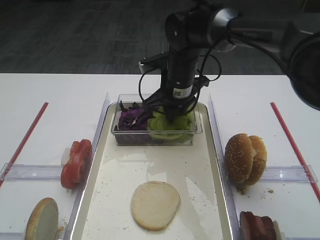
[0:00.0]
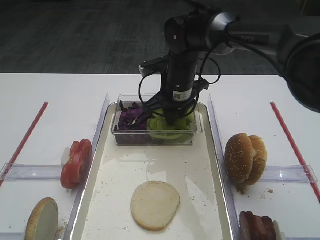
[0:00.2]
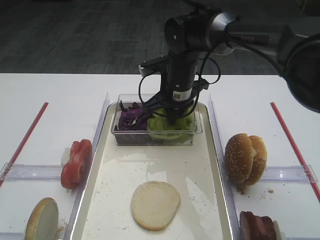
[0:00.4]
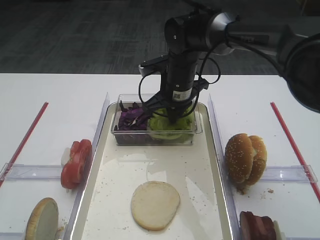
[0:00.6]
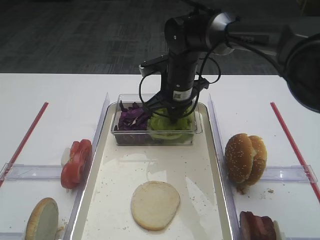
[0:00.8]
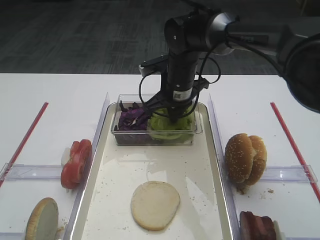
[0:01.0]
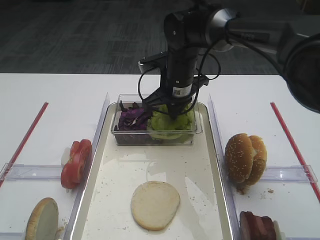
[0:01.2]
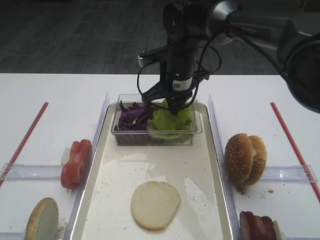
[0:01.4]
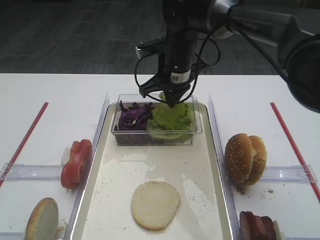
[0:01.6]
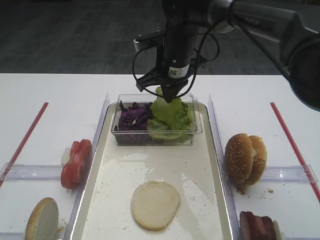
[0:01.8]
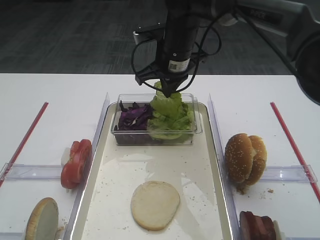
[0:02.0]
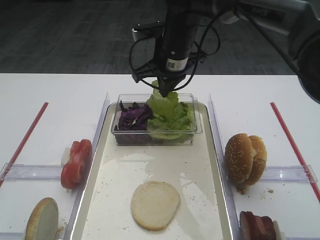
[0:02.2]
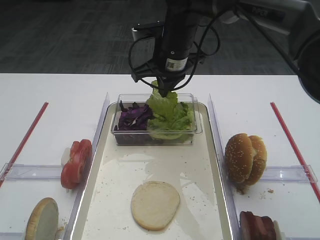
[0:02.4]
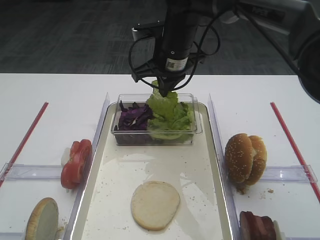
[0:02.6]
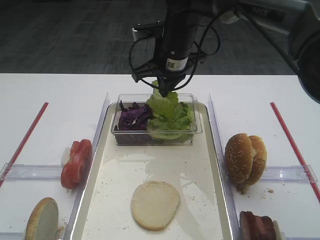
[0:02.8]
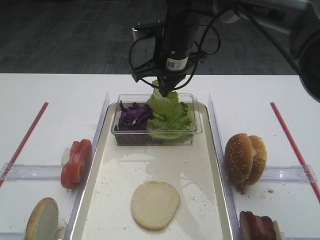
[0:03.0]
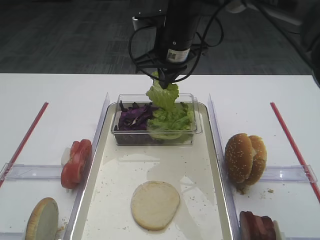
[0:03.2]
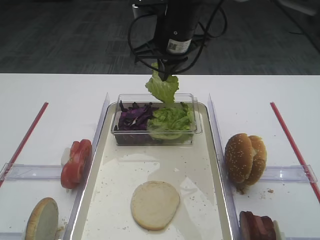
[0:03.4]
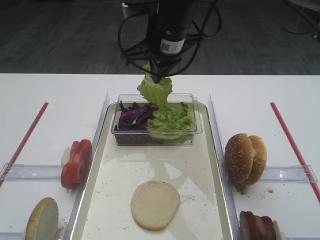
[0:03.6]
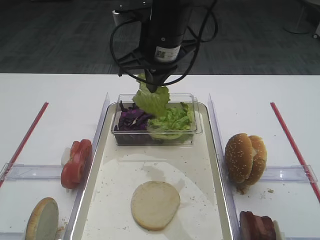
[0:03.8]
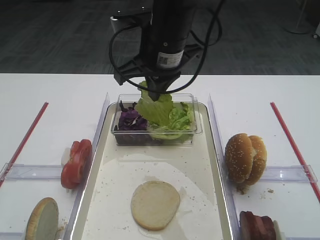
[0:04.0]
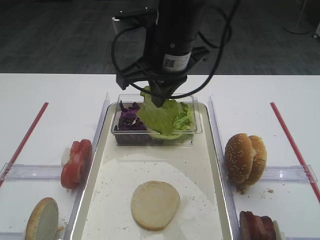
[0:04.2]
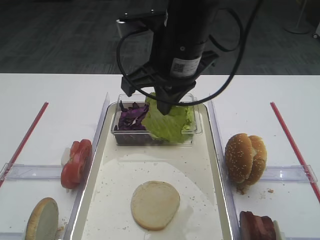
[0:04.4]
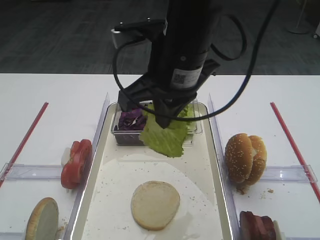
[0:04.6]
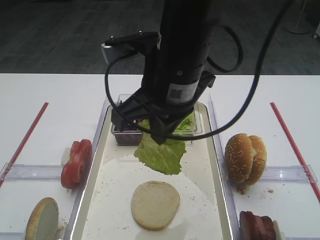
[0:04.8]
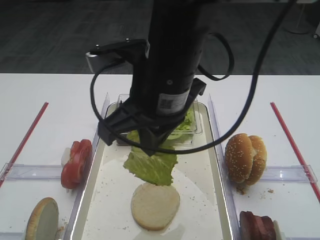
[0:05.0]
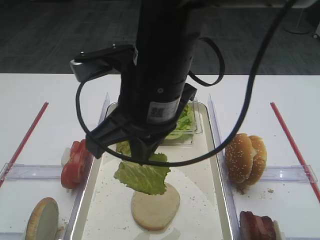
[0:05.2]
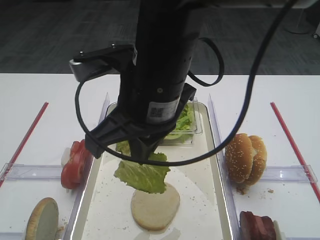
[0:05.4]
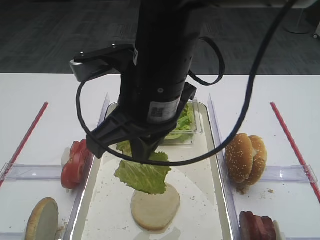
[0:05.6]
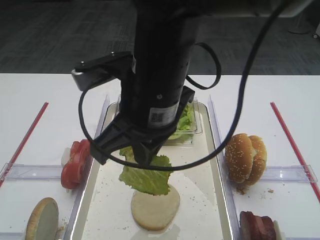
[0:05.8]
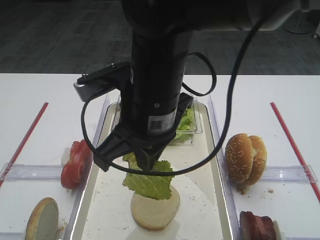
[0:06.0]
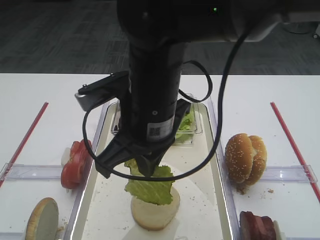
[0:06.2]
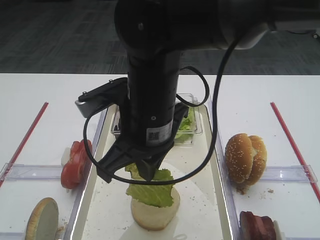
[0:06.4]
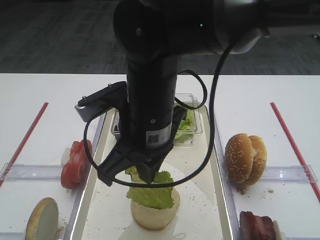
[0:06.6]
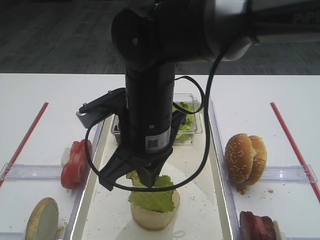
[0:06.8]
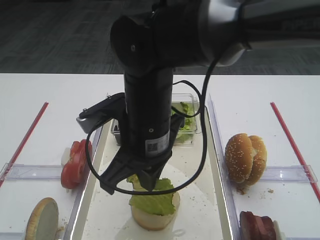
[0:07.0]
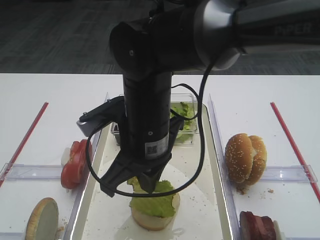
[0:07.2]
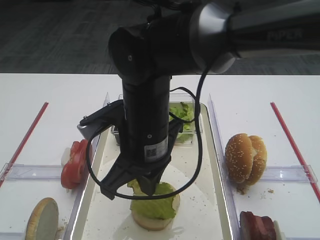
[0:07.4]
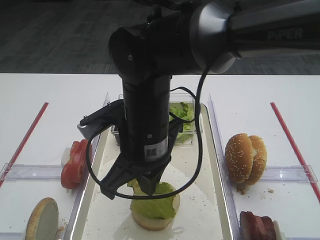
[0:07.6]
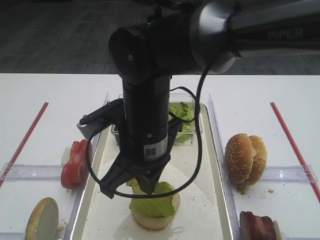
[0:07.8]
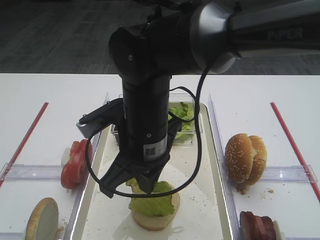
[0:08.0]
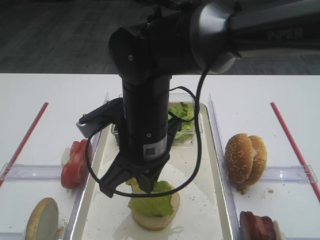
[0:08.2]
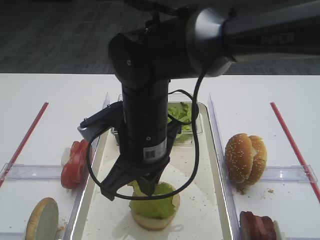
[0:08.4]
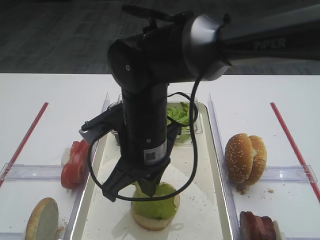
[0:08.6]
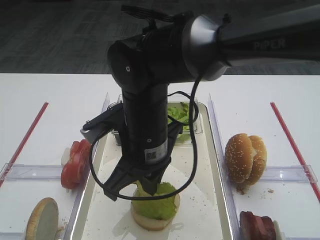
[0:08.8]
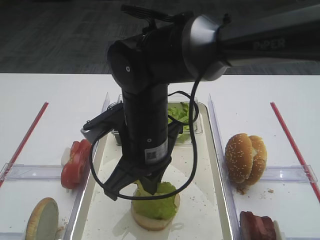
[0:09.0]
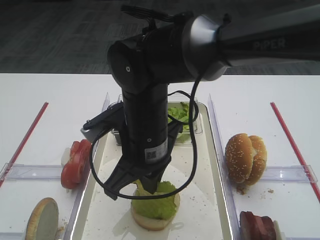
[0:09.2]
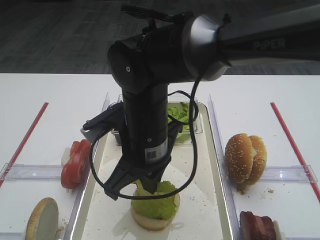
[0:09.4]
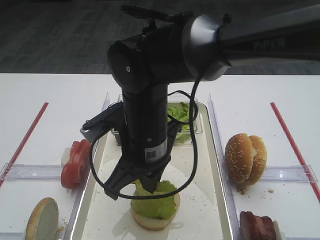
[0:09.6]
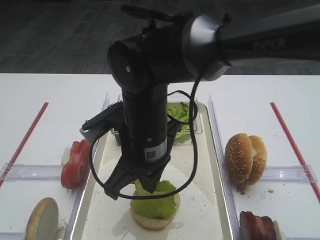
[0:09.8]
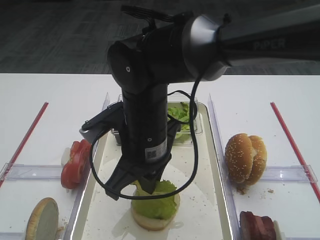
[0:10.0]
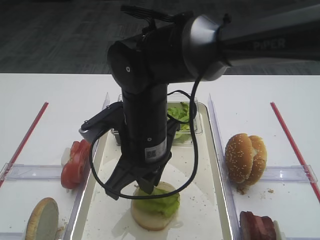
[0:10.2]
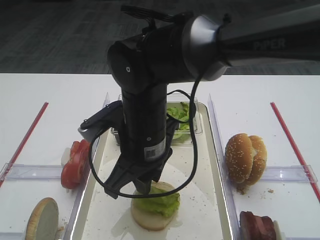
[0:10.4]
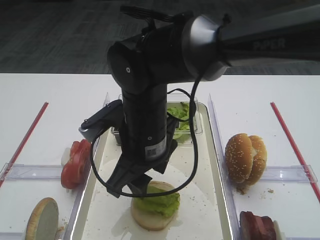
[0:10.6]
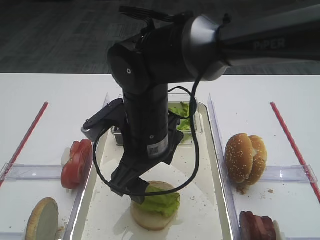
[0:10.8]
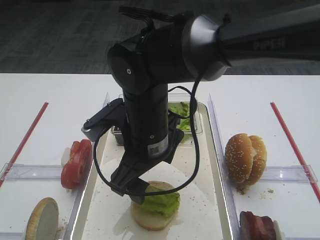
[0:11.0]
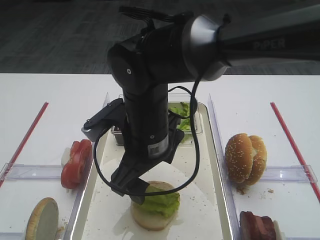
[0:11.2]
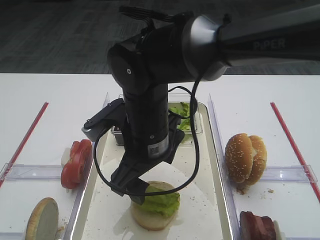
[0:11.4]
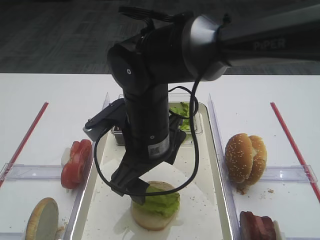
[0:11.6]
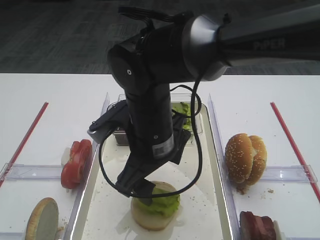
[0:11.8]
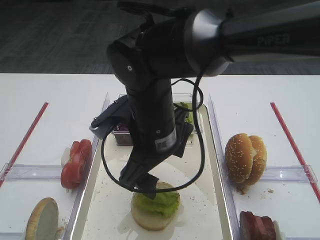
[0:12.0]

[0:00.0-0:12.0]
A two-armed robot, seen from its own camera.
Step, 0:00.0 to 0:02.2: Pick up the lettuce leaf with the right gripper.
0:00.0 to 0:01.6: The grippers make only small movements.
0:01.6 to 0:03.0: The grippers stay close to where they were, moving slightly.
0:03.0 to 0:04.4: The right gripper goes approximately 15 cm backward and upward.
0:04.4 to 0:06.0: The right gripper moves backward, approximately 5 cm.
0:06.0 to 0:07.6: The right gripper is displaced downward by roughly 5 cm.
0:07.6 to 0:09.0: The grippers stay close to where they were, moving slightly.
0:09.0 to 0:10.4: Both grippers stay about where they are.
0:10.4 to 0:12.0: The right gripper opens its fingers.

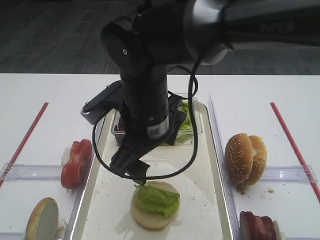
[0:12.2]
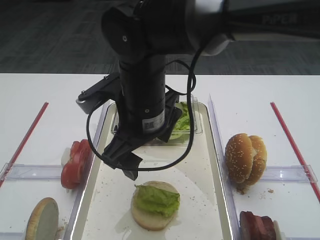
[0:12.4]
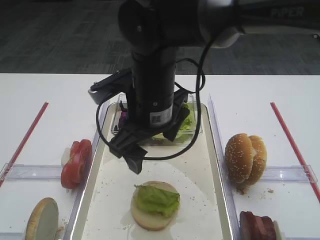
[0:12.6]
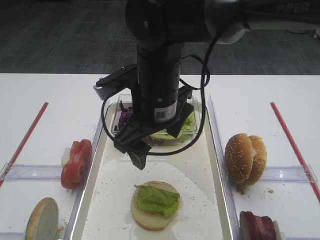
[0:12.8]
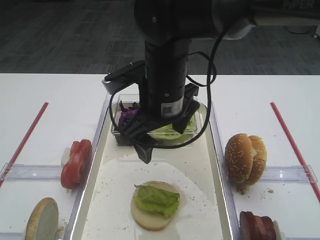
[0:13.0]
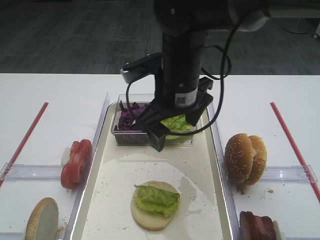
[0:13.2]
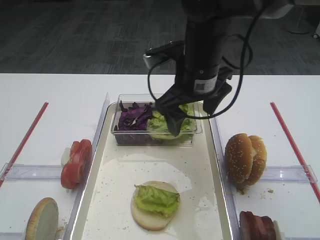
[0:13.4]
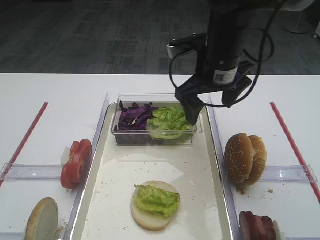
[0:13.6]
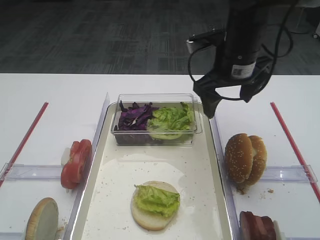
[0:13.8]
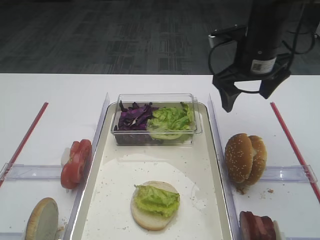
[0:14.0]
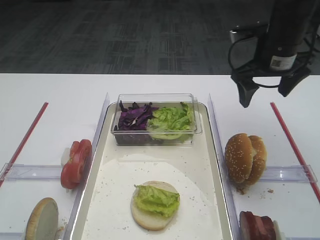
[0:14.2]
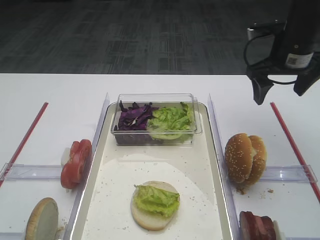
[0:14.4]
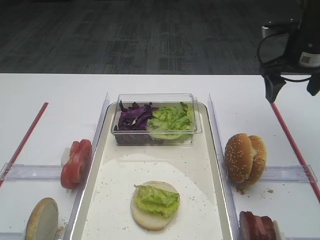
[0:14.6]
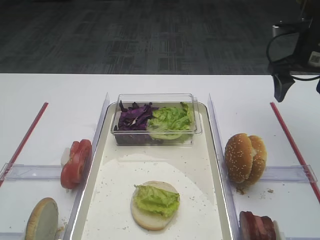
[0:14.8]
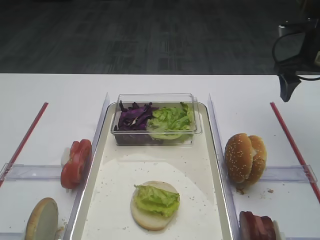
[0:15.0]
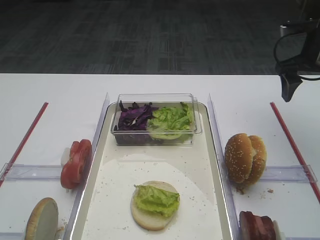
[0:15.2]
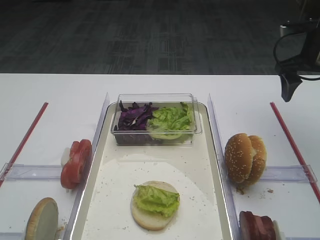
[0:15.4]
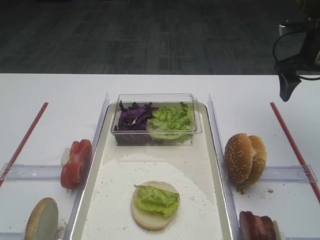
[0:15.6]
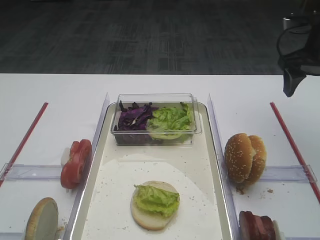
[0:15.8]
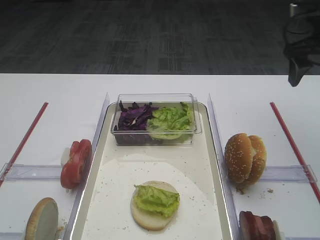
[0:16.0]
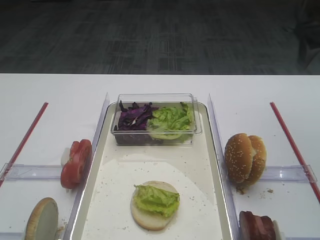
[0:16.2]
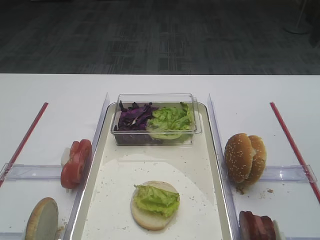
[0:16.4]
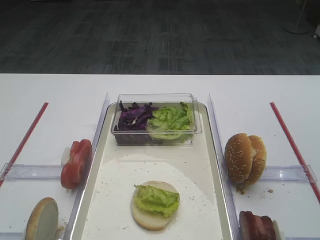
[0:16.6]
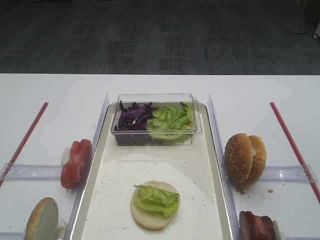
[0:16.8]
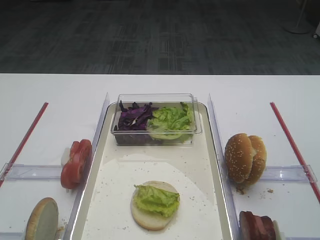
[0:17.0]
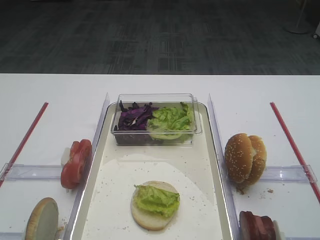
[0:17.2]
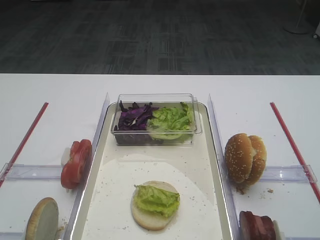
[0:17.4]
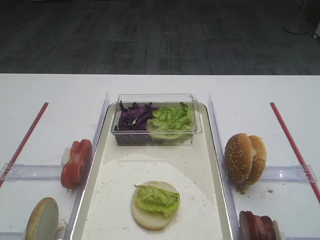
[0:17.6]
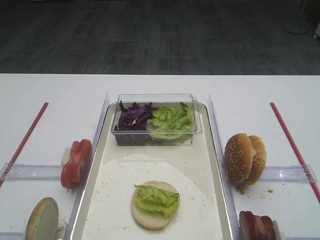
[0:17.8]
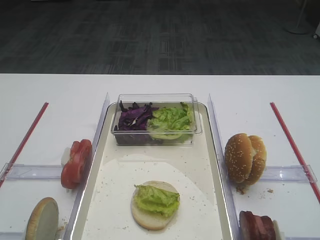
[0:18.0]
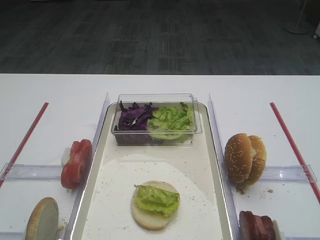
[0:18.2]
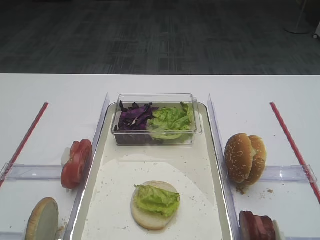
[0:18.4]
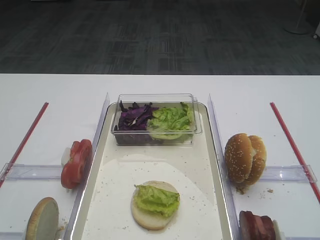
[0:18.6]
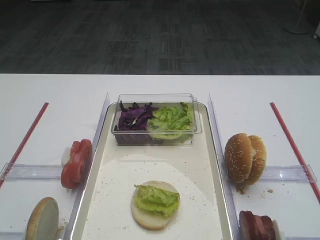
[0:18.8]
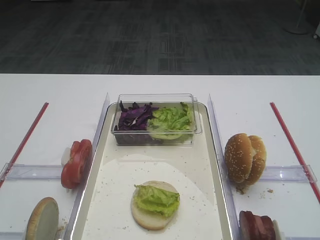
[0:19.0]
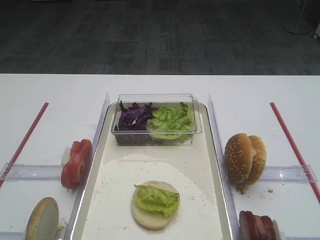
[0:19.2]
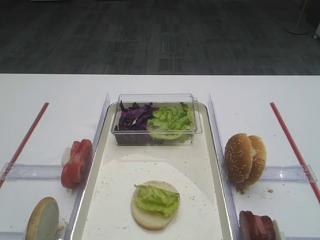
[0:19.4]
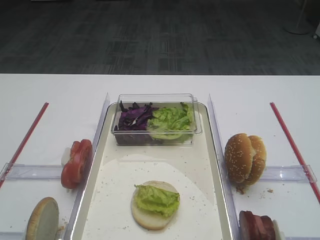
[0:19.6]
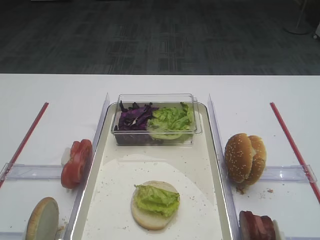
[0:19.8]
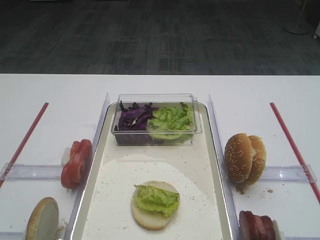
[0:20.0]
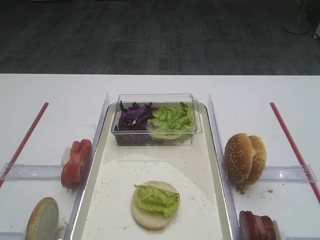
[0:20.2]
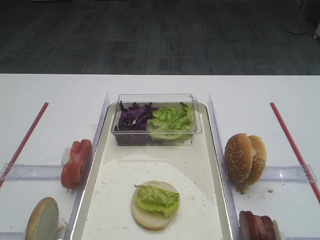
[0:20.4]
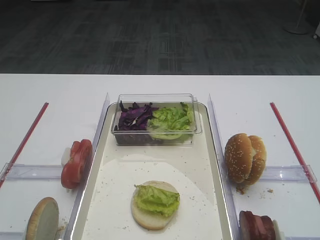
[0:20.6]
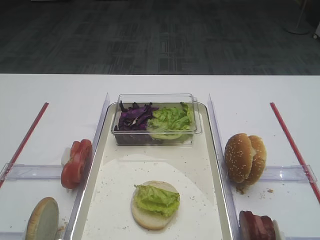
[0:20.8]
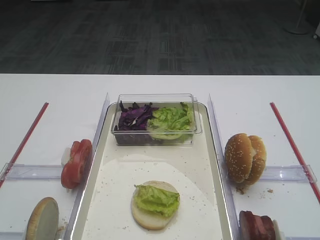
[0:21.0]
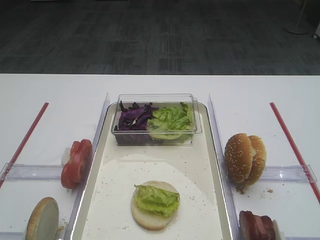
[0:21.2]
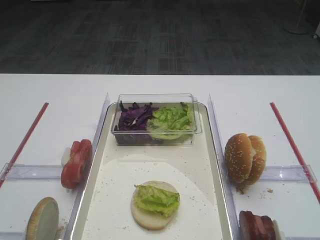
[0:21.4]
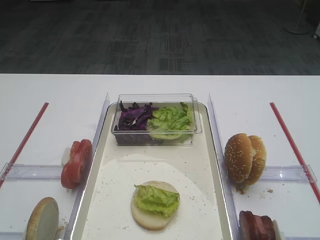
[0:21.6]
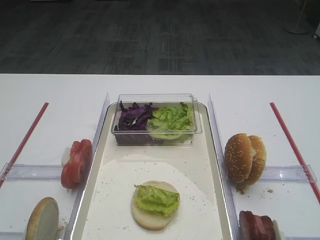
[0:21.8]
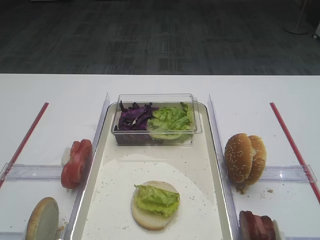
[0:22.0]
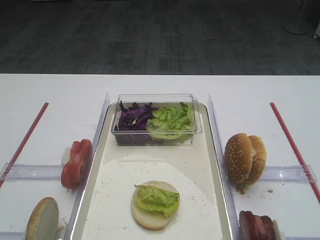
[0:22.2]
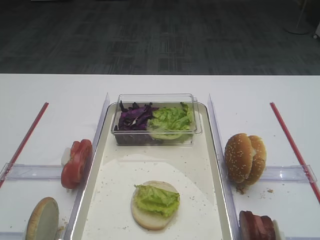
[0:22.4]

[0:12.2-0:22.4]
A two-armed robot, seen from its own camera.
0:12.2 to 0:13.6: The right gripper moves to the right and forward, roughly 15 cm.
0:13.6 to 0:15.2: The right gripper heads to the right, covering about 20 cm.
0:15.2 to 0:16.6: The right gripper travels upward and backward by some 20 cm.
0:19.4 to 0:22.4: Both grippers stay about where they are.
